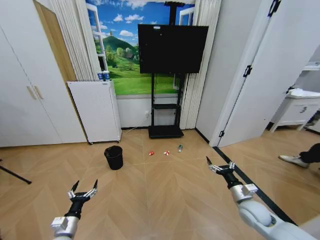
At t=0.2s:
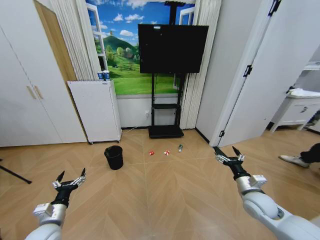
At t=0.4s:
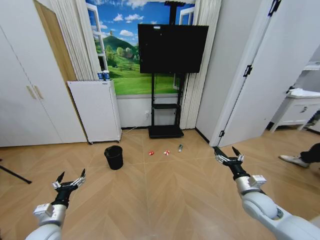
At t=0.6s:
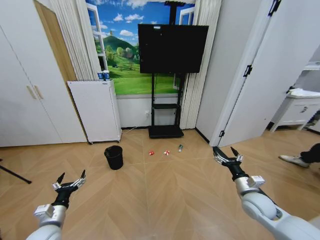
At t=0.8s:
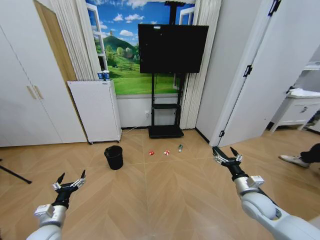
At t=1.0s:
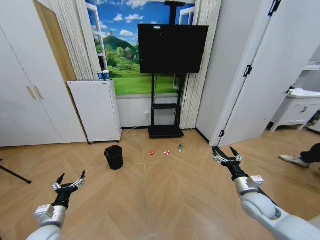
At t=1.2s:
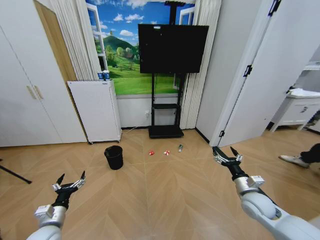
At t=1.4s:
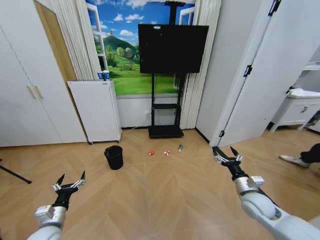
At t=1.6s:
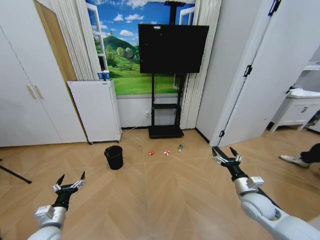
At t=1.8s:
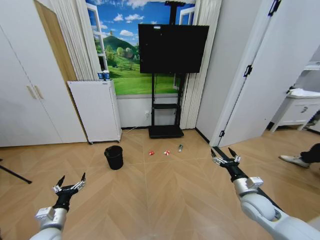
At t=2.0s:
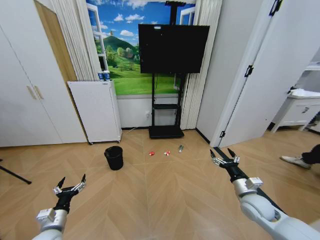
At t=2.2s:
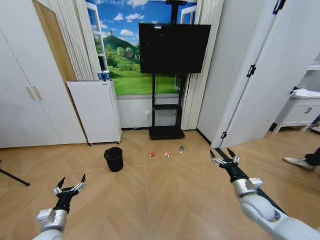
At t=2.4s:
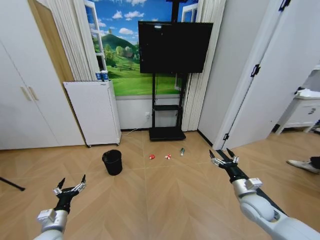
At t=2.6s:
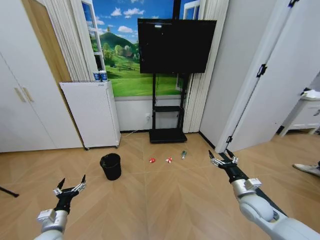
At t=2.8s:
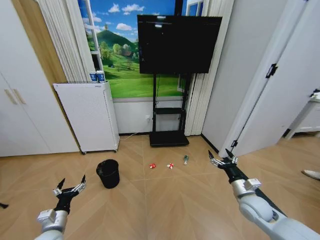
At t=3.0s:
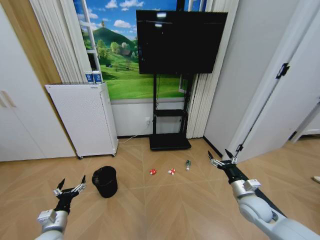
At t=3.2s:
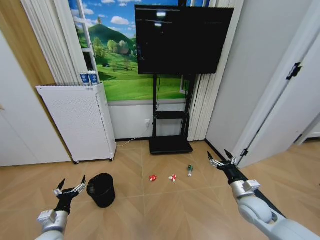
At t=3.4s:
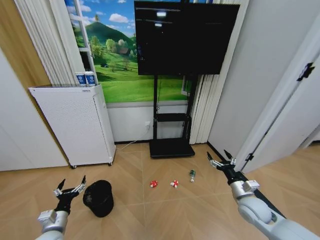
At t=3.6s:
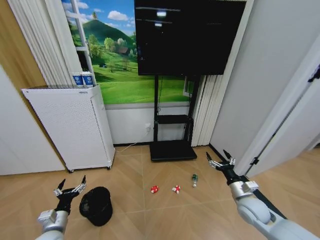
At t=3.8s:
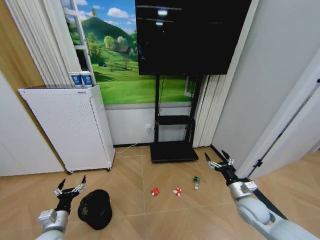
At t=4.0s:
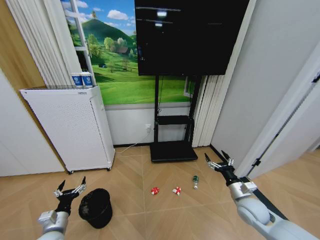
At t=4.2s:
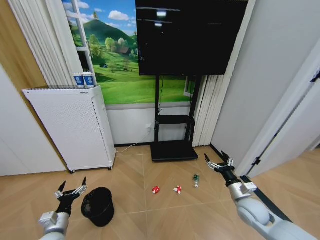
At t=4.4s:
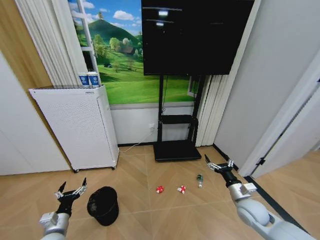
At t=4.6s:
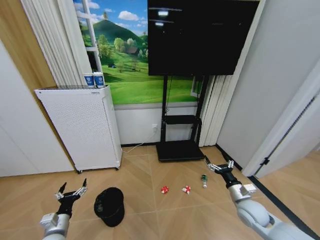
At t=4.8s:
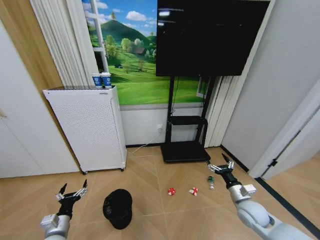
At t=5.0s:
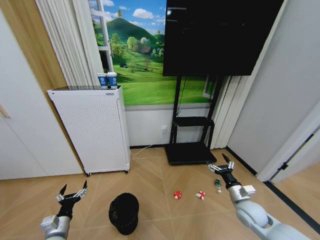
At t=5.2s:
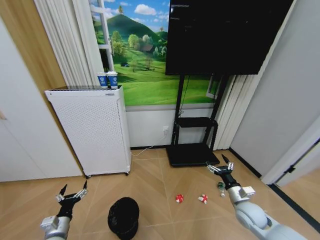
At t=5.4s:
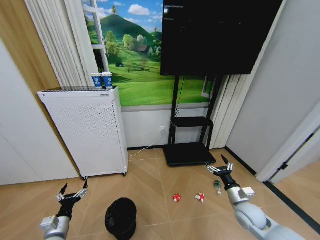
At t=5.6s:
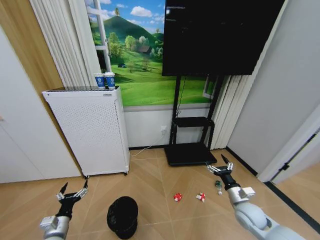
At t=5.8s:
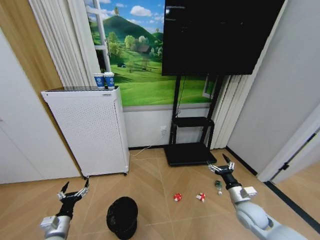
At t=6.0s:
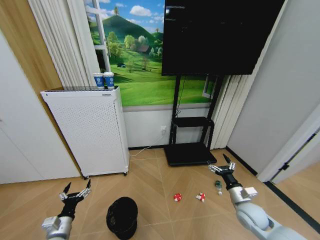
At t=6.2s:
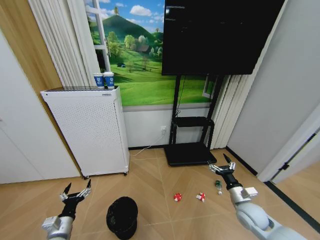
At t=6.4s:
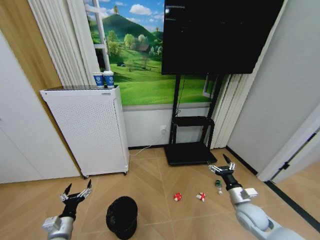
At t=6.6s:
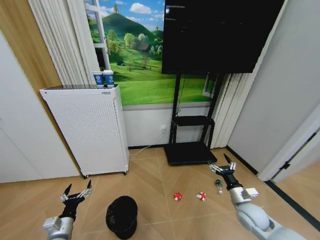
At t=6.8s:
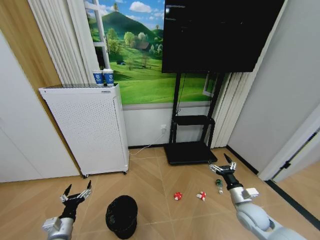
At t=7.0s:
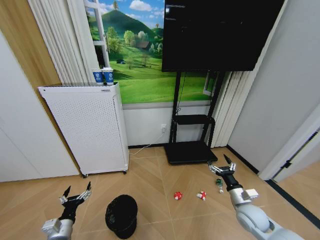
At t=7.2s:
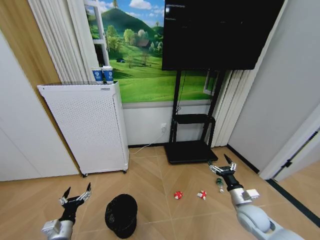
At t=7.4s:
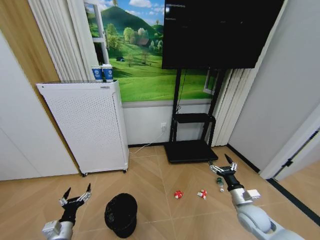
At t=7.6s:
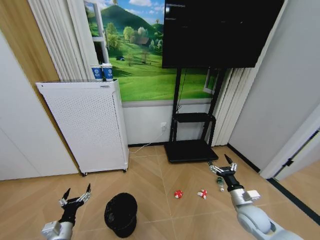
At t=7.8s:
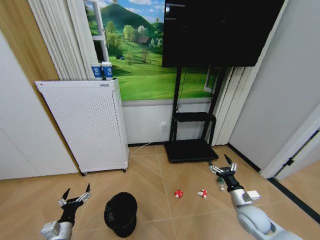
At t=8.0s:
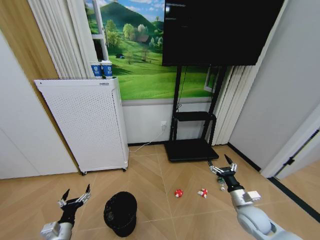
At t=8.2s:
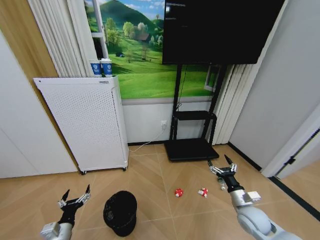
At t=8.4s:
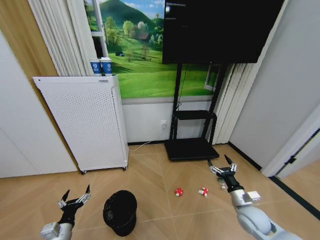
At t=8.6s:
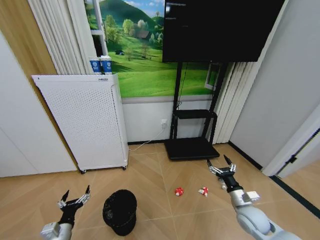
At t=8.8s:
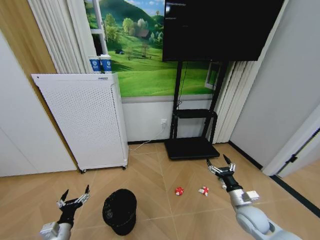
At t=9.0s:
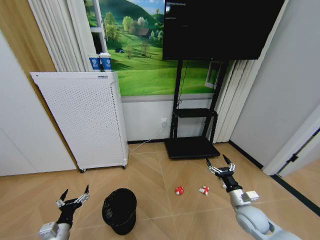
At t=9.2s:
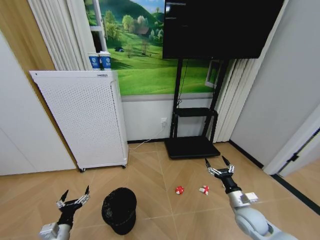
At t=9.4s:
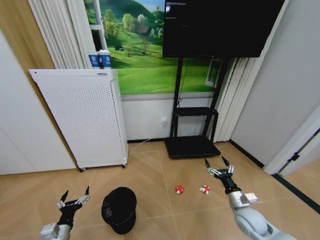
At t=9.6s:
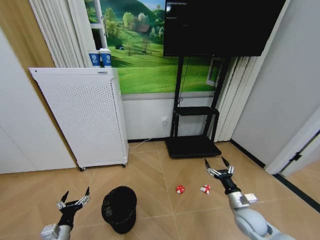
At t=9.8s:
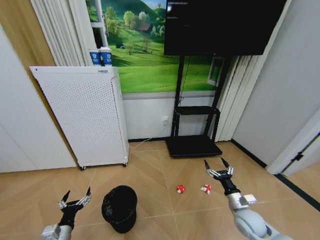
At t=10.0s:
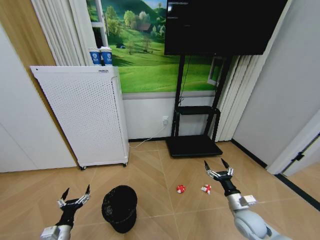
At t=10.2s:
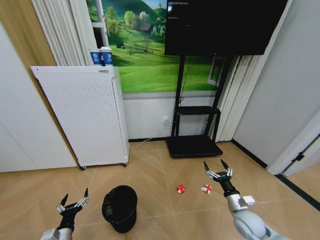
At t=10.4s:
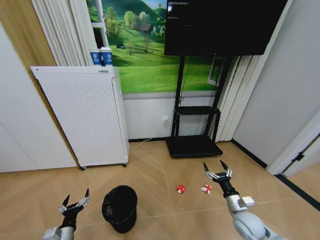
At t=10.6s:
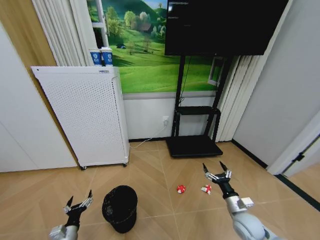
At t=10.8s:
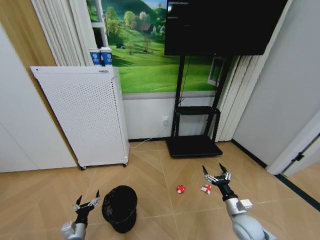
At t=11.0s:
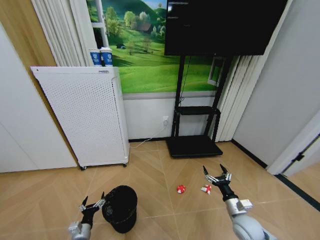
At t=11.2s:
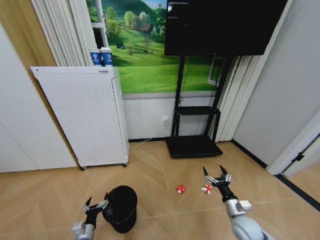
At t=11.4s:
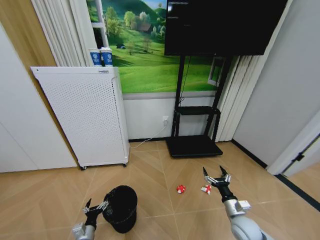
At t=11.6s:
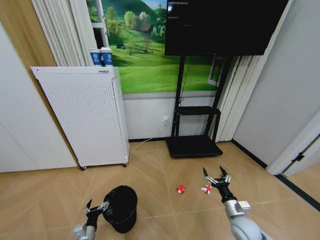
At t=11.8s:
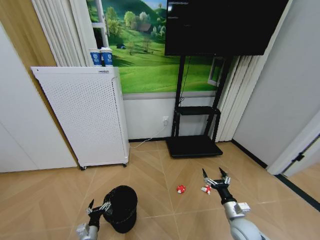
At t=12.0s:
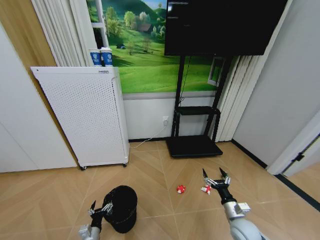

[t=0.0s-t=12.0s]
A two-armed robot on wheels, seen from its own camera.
Task of the whole recording: Pick up the trash bin and place the garbage on the floor into it.
t=6.0s to t=7.6s: The grippers move only a little.
t=7.6s to t=9.0s: Neither gripper changes place.
t=9.0s to t=10.4s: The grippers move only a little.
t=10.4s to t=12.0s: The left gripper is displaced downward and to the right by roughly 10 cm.

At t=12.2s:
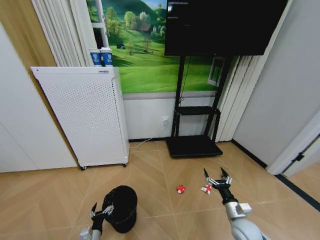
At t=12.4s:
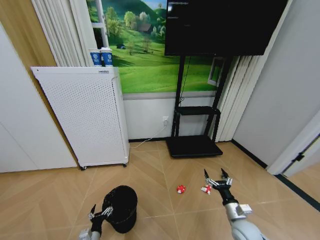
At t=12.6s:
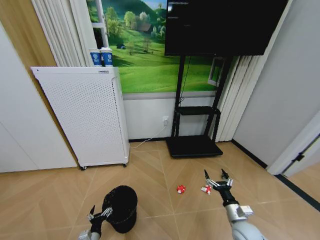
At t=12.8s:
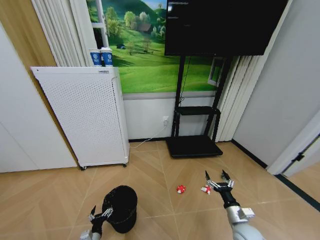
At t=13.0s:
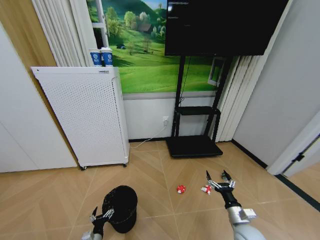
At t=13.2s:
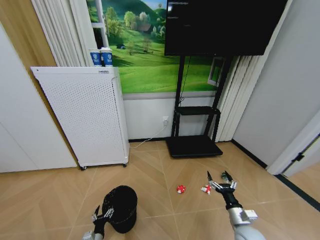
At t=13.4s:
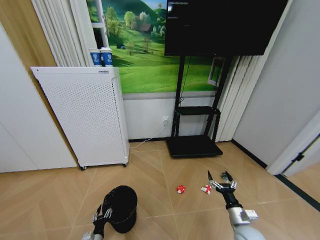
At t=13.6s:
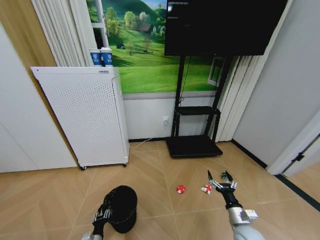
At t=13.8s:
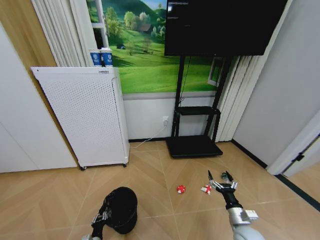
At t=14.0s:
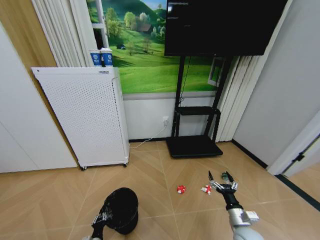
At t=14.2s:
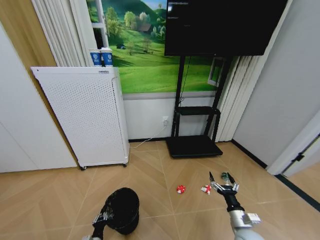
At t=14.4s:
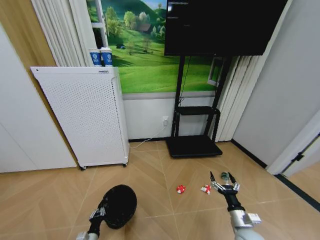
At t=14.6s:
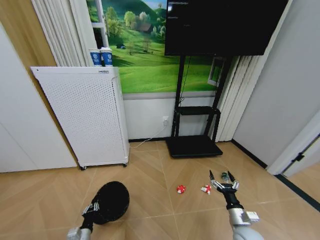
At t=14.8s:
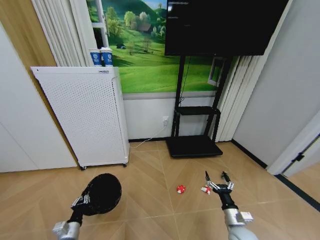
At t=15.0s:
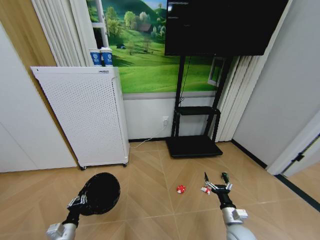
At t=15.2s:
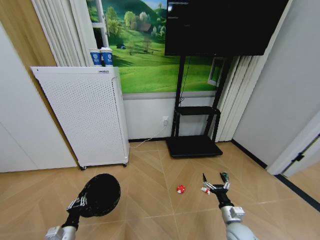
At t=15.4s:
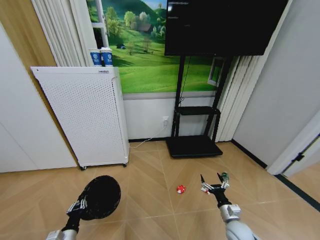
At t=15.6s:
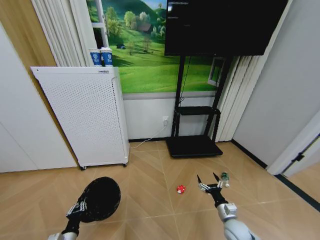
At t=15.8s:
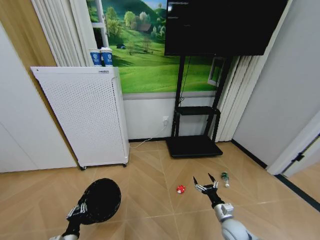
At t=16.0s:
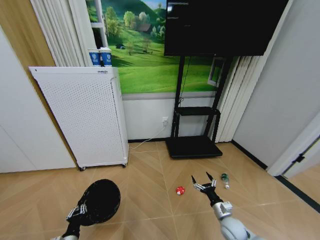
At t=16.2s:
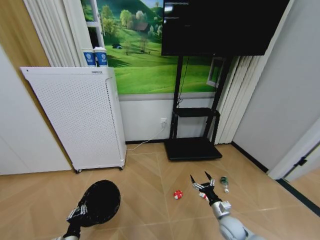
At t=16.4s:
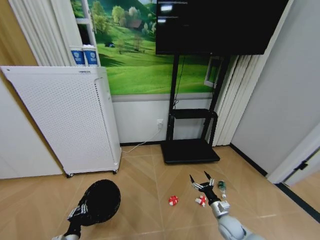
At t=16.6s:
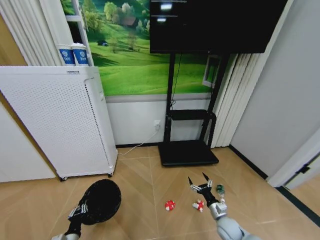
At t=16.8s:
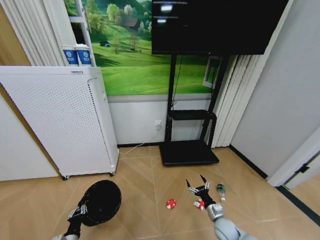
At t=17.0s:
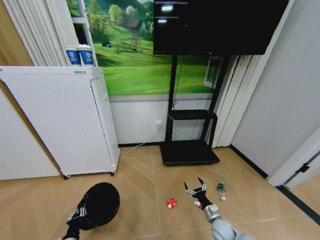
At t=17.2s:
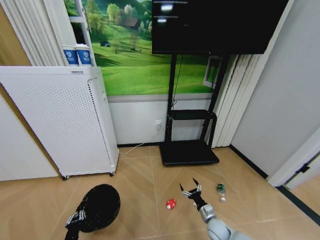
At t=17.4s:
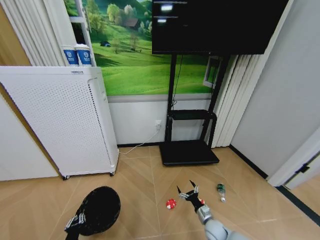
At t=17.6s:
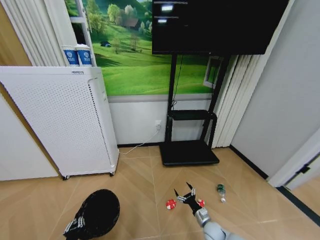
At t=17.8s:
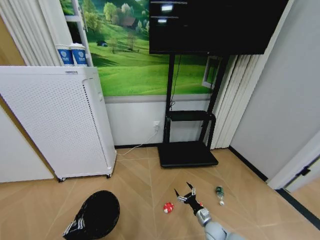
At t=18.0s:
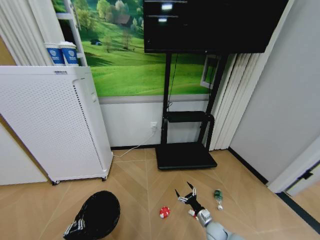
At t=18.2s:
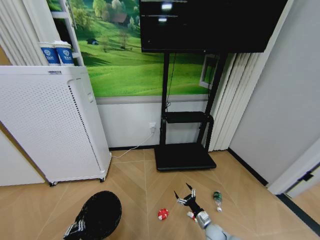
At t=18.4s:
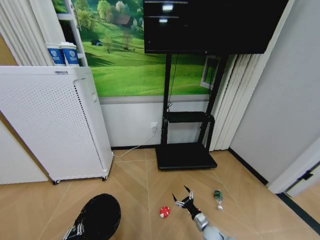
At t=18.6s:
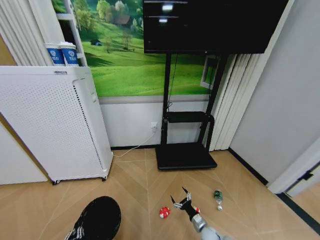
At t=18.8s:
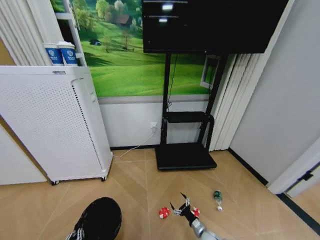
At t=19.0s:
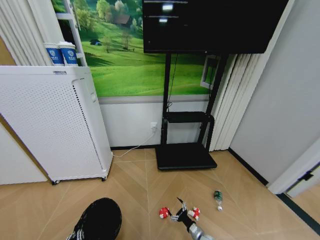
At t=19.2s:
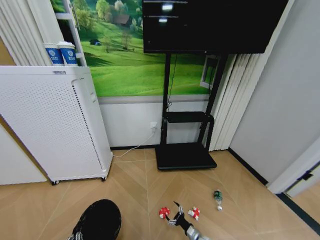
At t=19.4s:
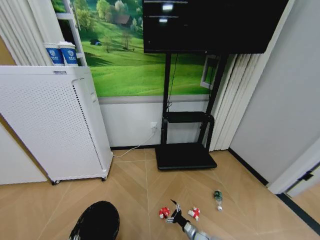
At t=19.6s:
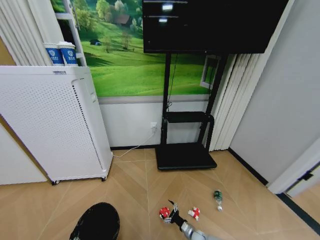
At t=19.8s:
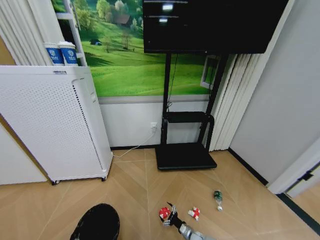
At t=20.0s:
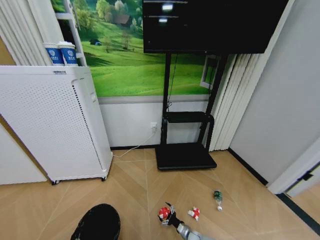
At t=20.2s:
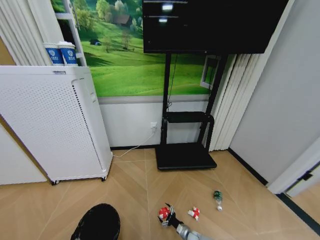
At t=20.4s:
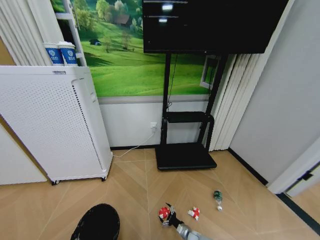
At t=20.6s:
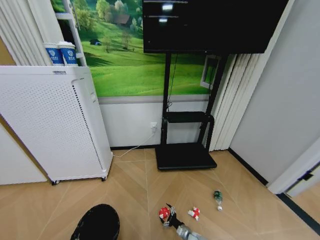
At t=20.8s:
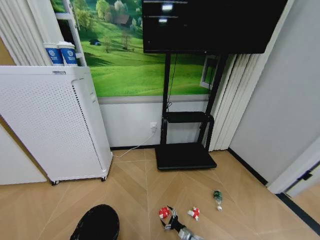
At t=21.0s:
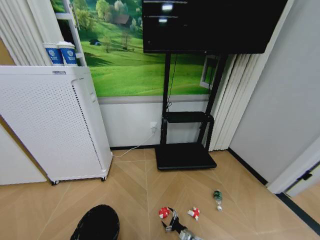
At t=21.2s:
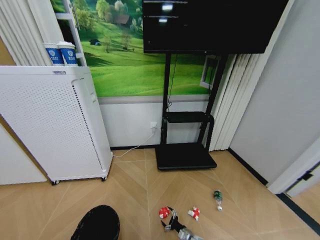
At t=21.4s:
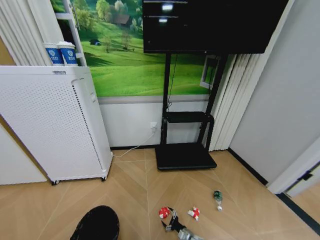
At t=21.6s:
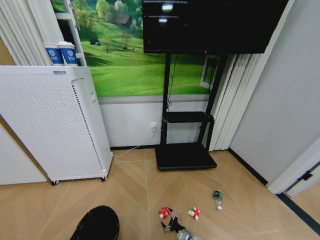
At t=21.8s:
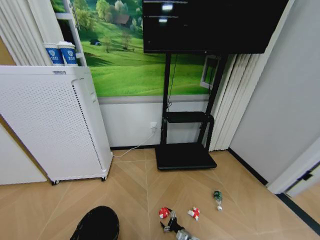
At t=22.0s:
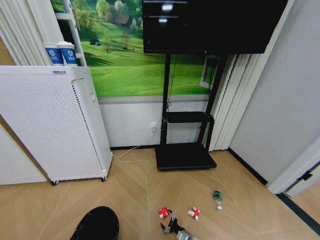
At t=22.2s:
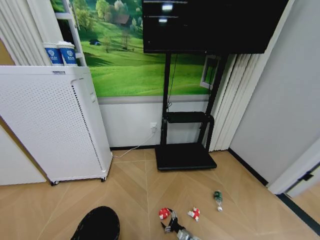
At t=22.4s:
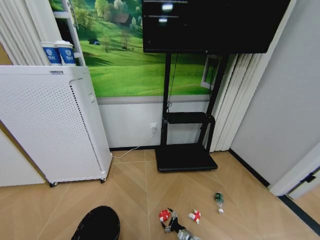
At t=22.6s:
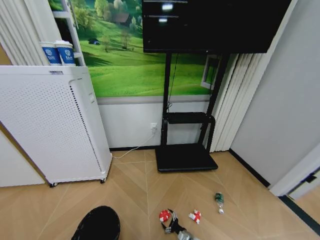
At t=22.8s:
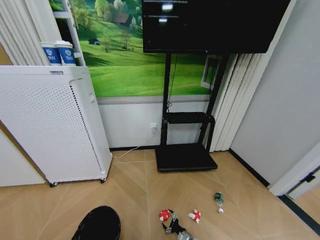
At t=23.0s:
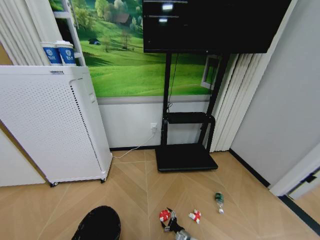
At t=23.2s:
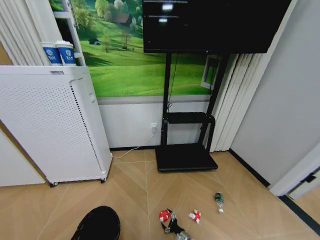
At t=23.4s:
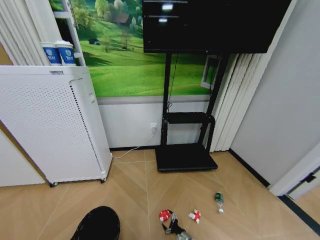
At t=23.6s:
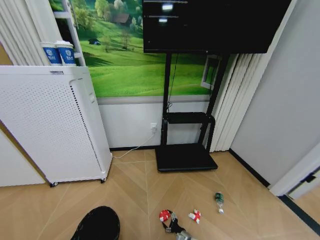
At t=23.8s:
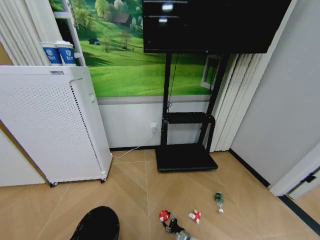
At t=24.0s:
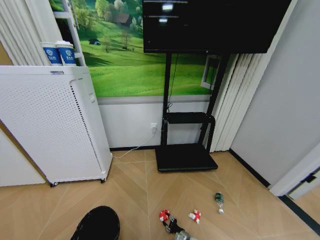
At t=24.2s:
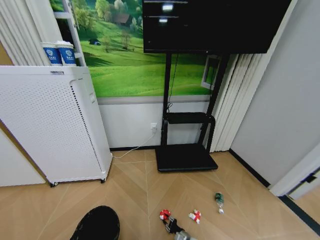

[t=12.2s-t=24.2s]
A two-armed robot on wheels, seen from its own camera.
Task of the whole recording: Pick up the trash bin and place the garbage on the floor into it.
t=12.2s to t=13.8s: The left gripper closes its fingers.
t=13.8s to t=15.2s: The left gripper moves upward and to the left, about 15 cm.
t=15.2s to t=16.6s: The right gripper changes place by approximately 5 cm.
t=16.6s to t=18.2s: The left gripper heads backward, covering roughly 5 cm. The right gripper heads downward, covering approximately 10 cm.
t=18.2s to t=19.8s: The right gripper shifts some 15 cm downward and to the left; the left gripper goes about 5 cm backward.
t=19.8s to t=22.6s: There are only small adjustments of the grippers.
